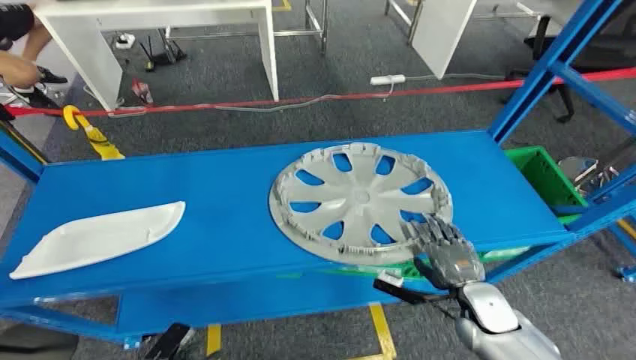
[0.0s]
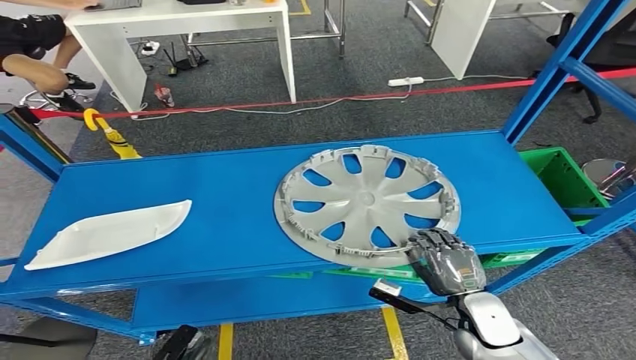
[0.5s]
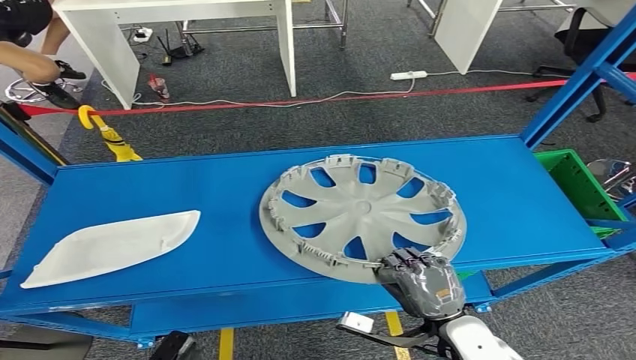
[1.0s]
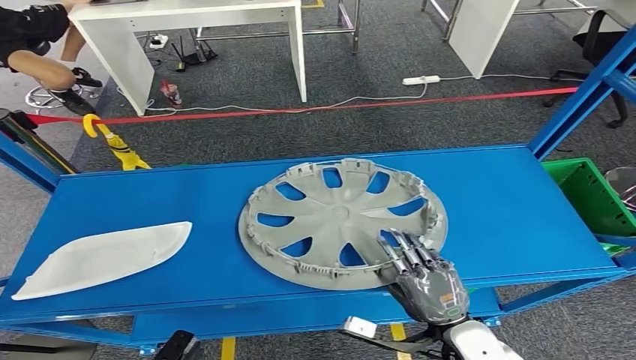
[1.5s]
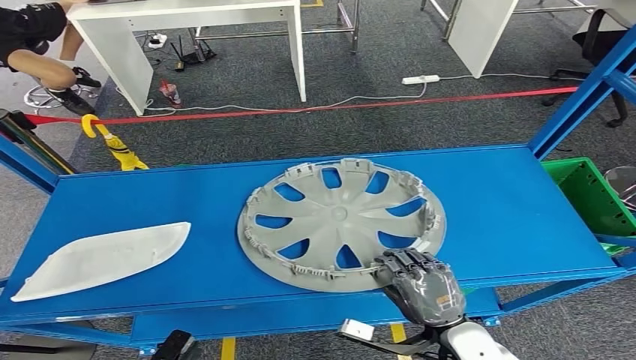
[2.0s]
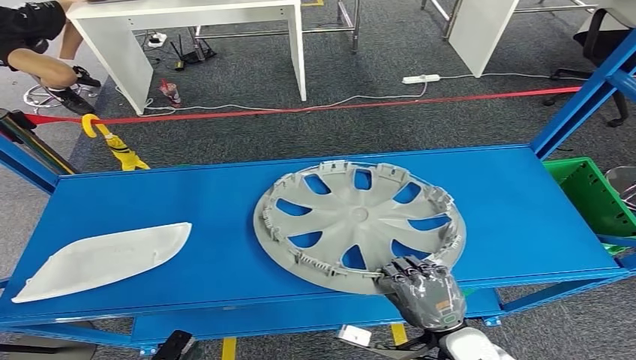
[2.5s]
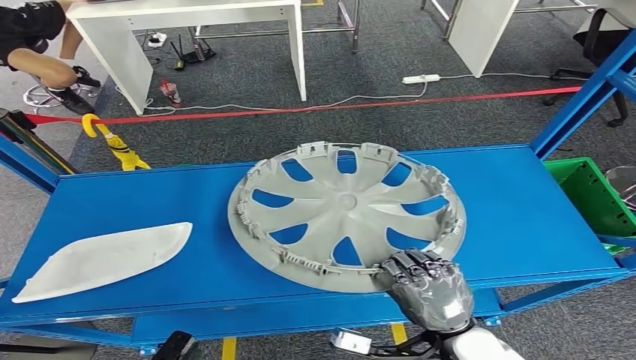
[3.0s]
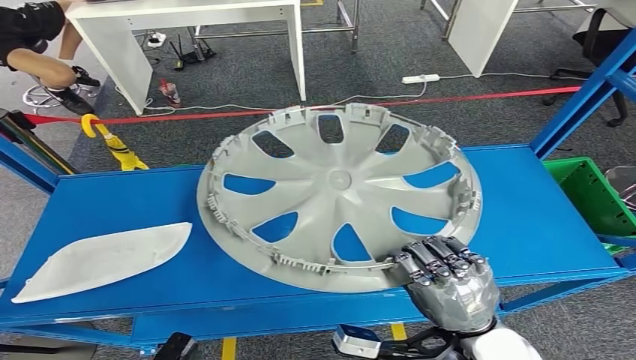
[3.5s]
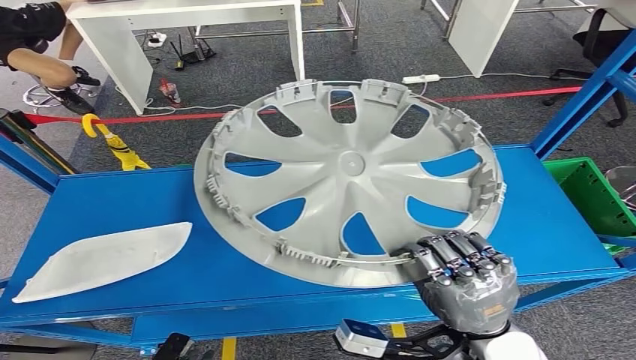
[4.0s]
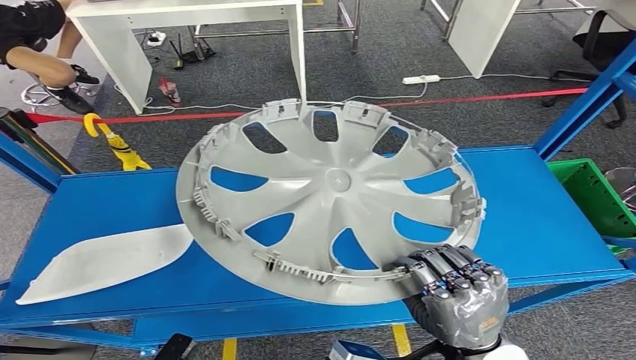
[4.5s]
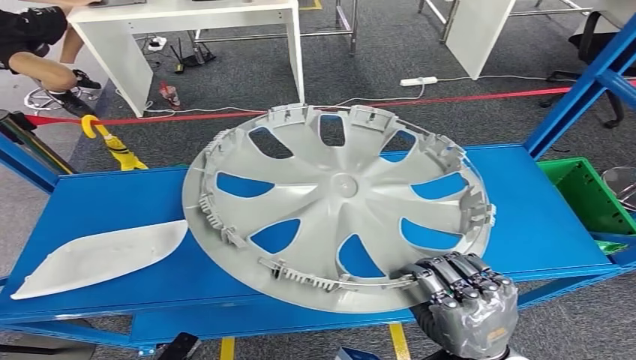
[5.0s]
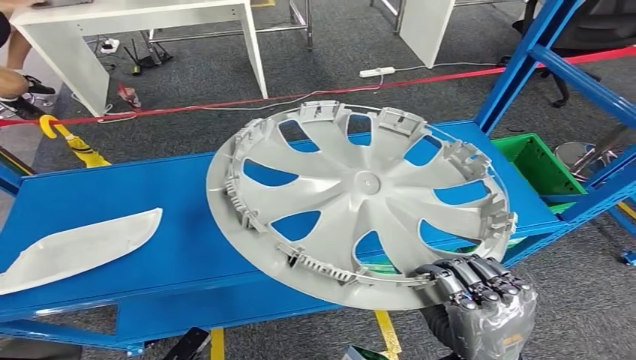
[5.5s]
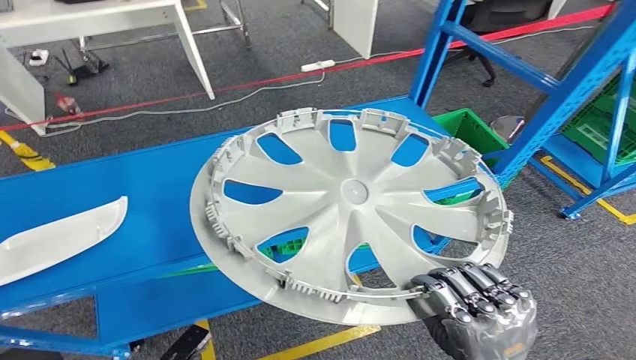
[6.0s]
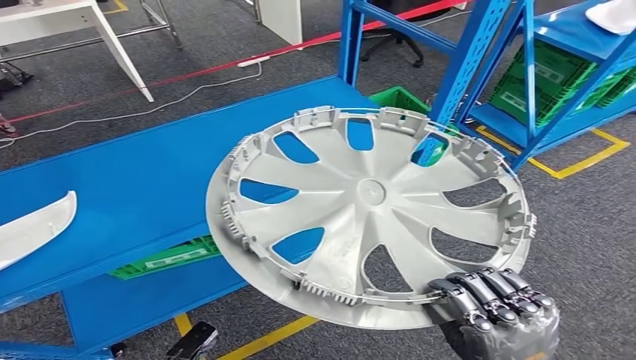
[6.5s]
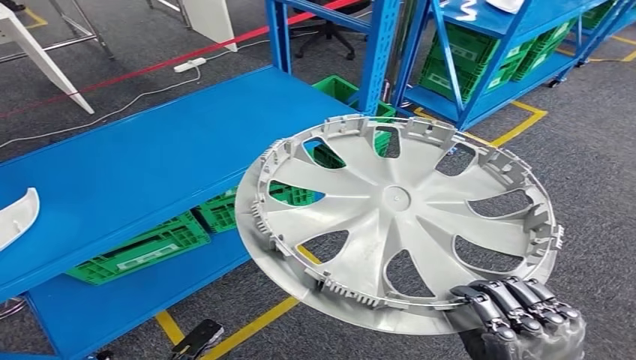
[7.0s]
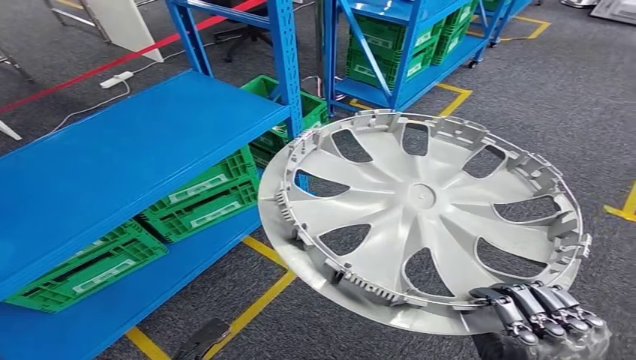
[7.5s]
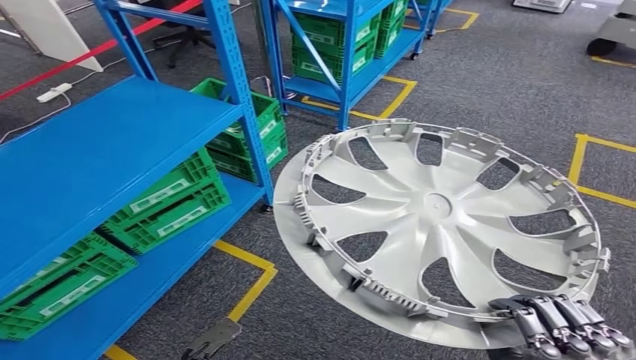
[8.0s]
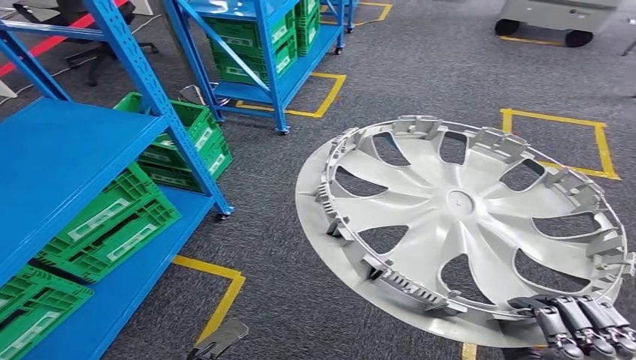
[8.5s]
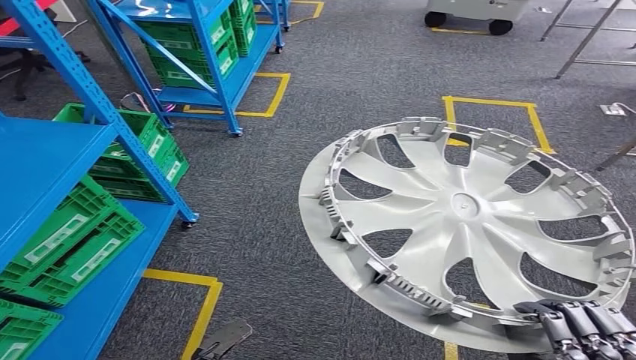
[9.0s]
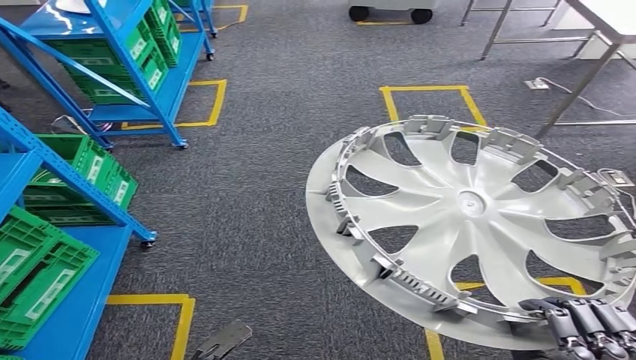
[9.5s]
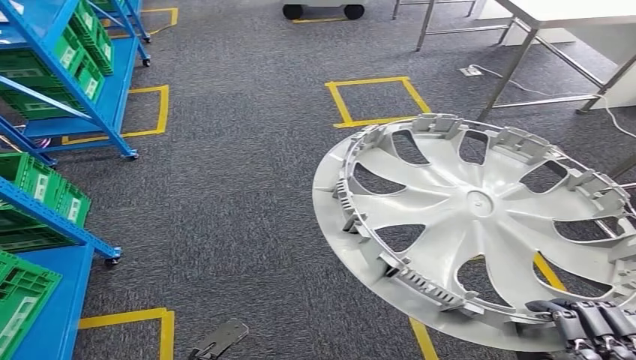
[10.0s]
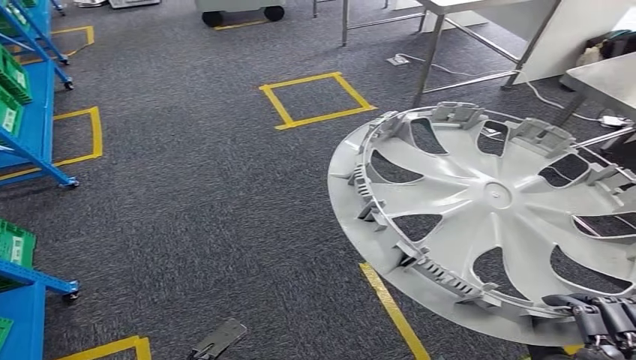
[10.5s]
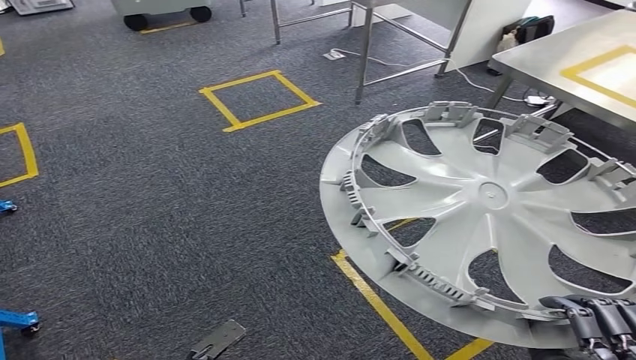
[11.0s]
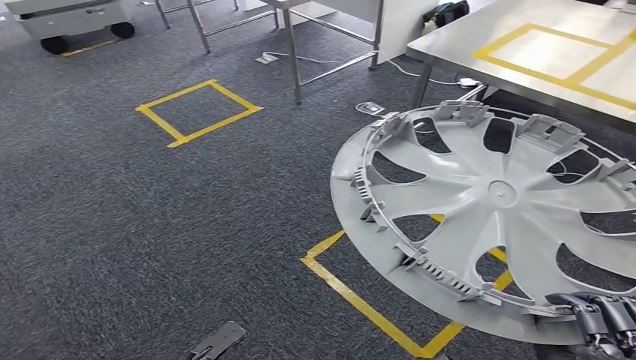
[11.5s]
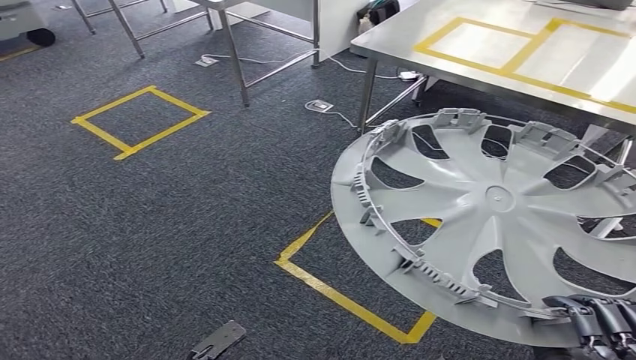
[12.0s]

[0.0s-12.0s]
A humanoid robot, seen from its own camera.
Step, 0.0s to 4.5s: Pick up the small component from the shelf.

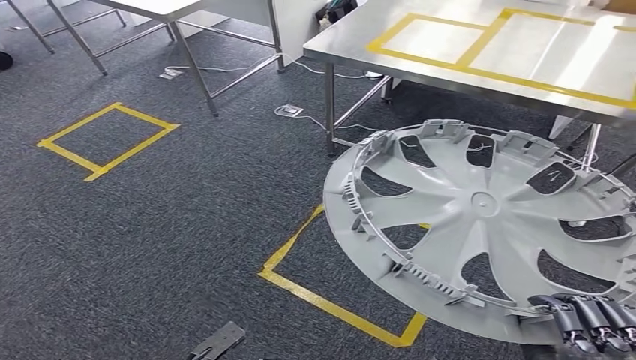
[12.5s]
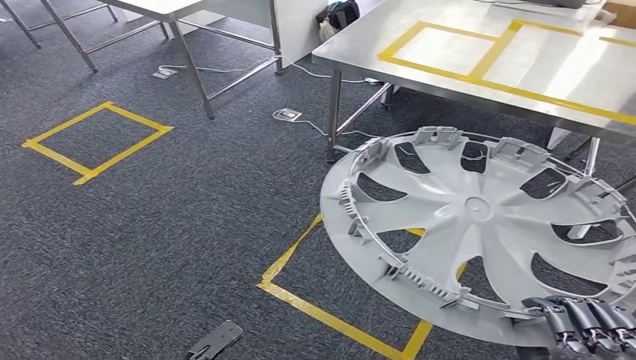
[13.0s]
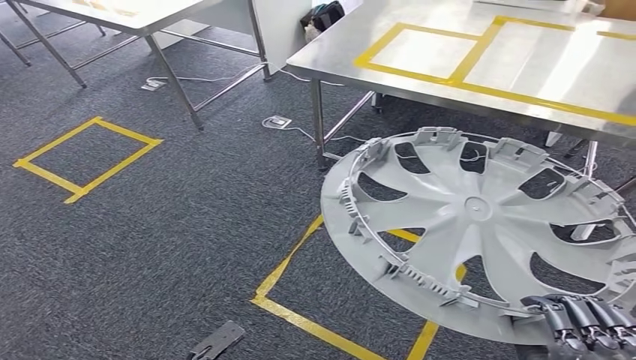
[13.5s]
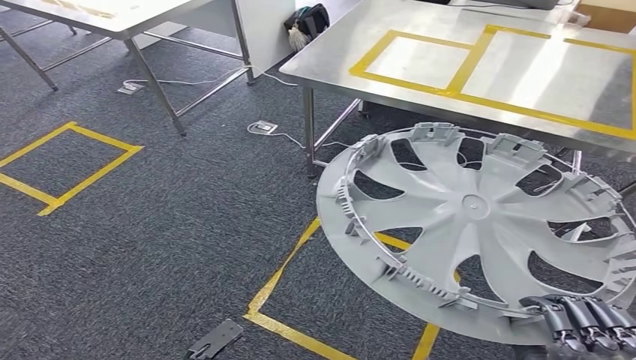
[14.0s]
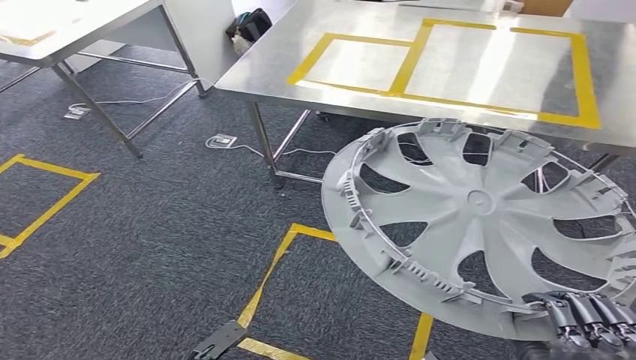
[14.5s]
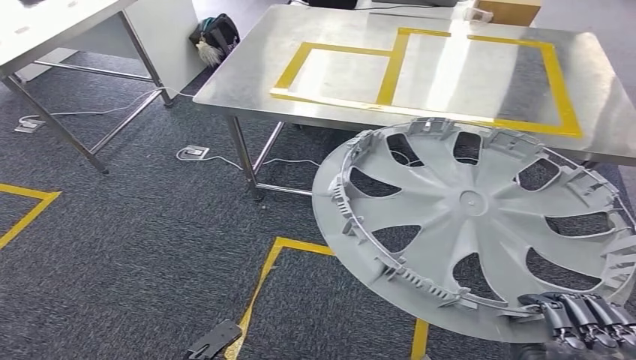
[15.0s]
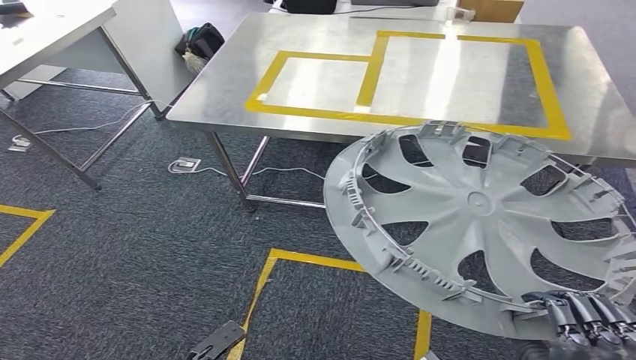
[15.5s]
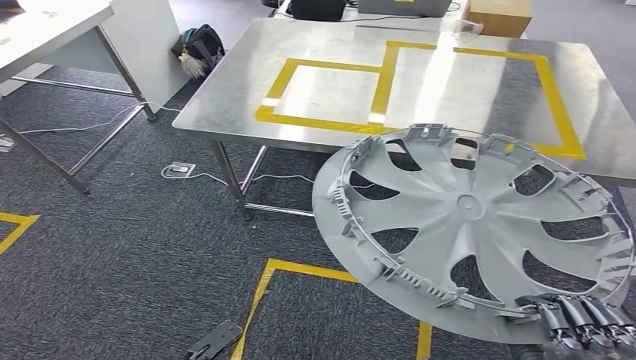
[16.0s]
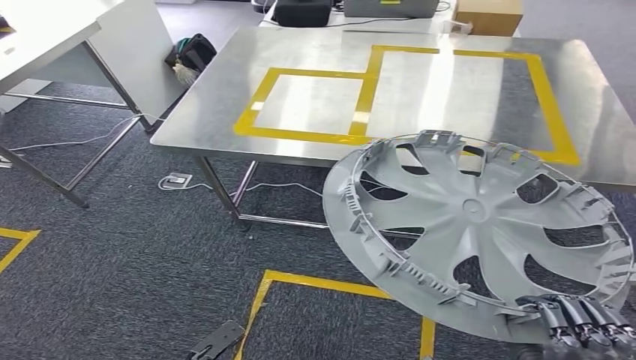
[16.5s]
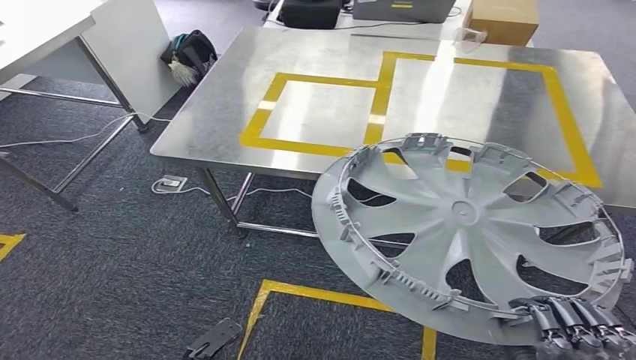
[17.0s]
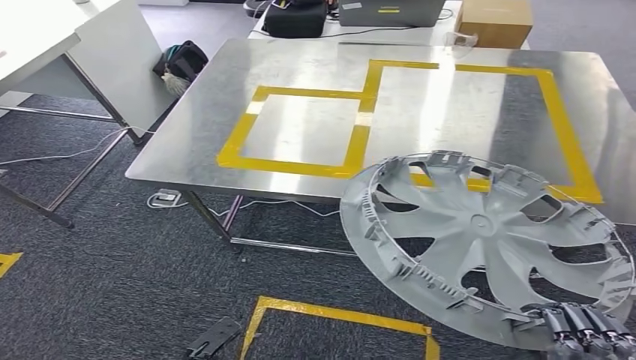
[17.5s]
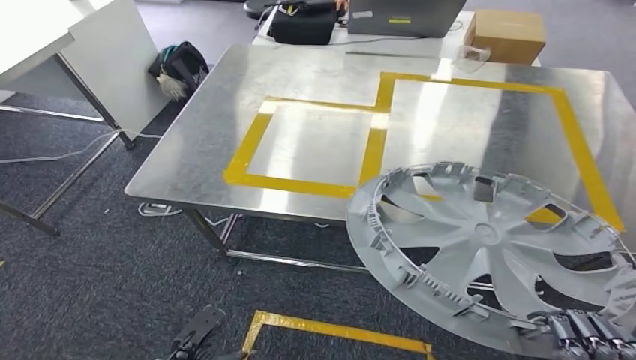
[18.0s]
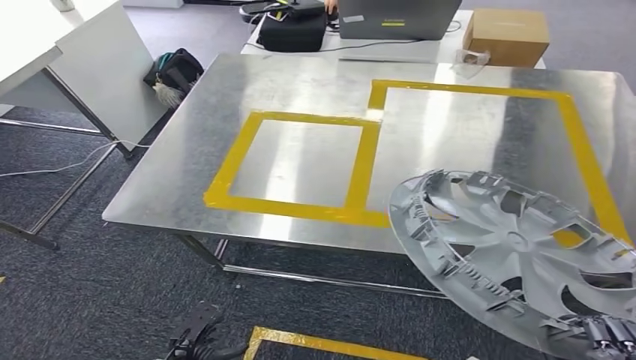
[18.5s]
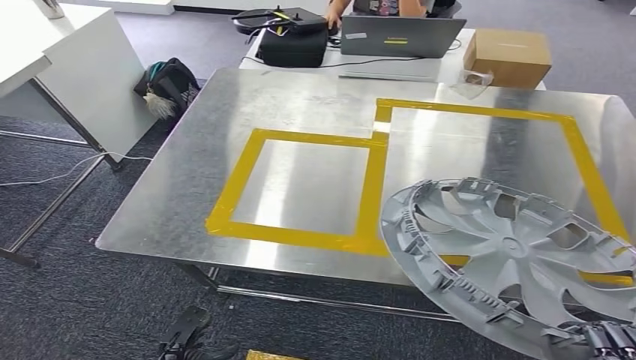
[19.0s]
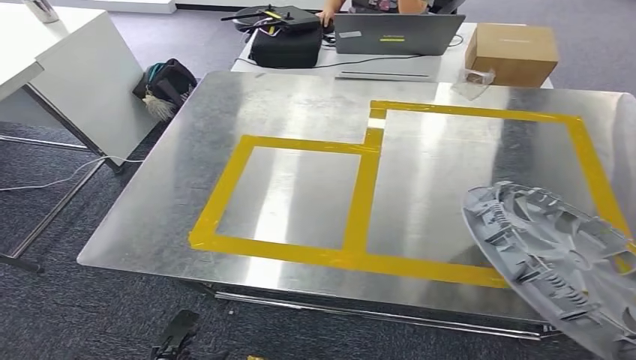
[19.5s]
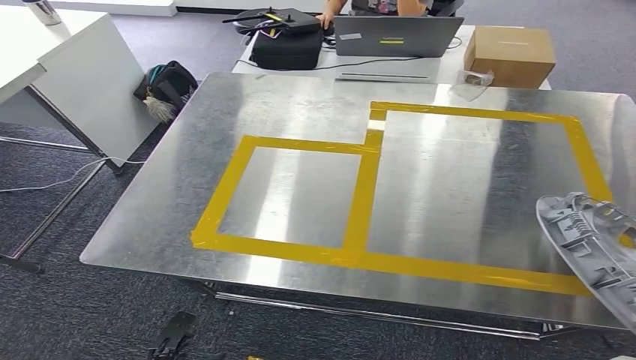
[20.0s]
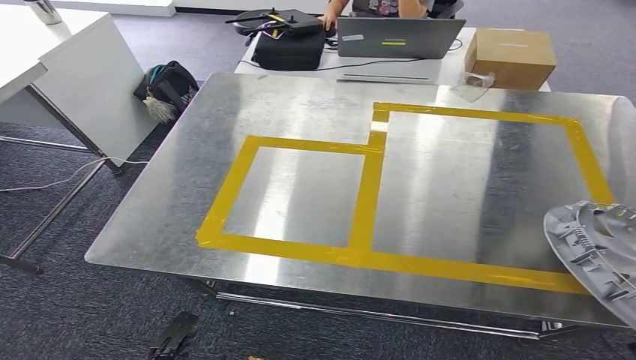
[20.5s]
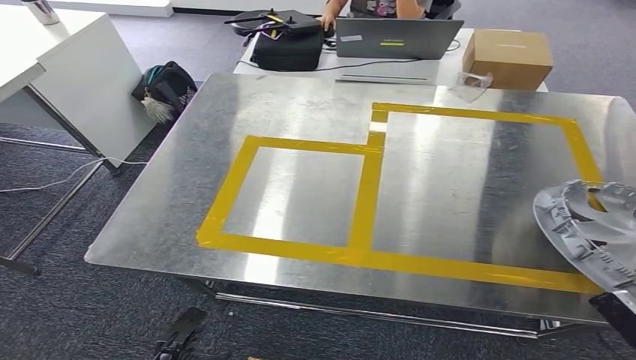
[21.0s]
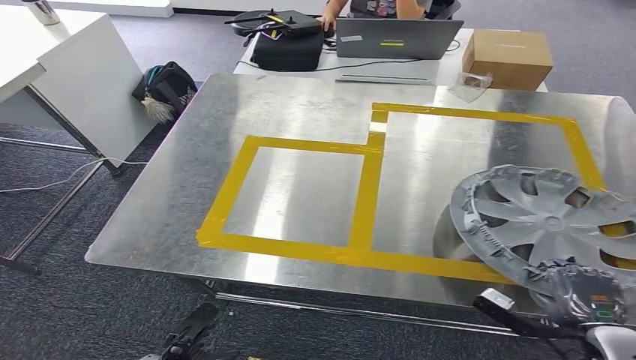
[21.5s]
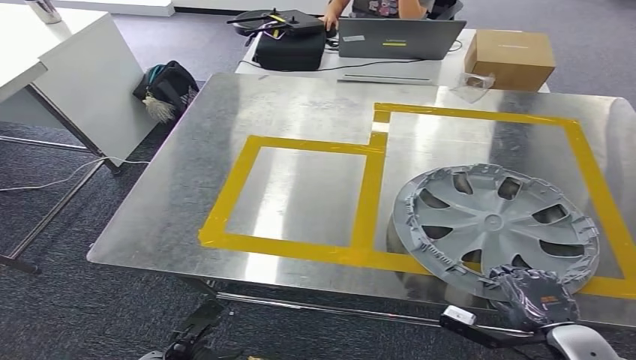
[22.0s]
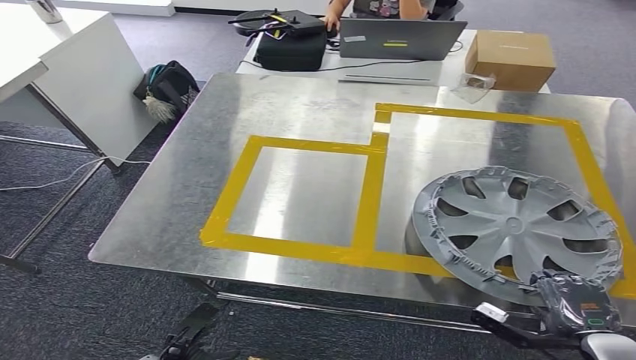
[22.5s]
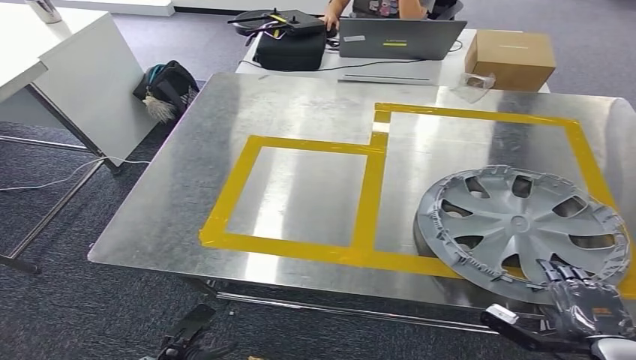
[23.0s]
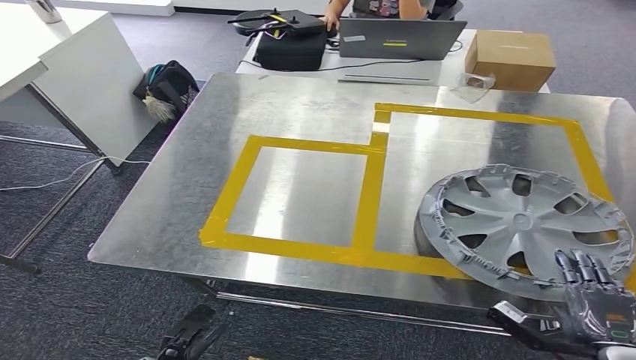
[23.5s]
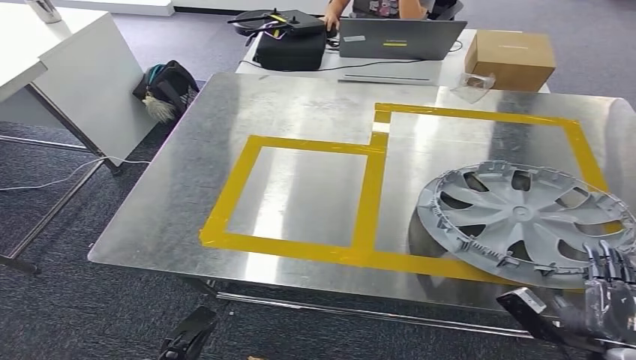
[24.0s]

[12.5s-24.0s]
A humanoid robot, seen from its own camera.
Step, 12.5s to 17.5s: Move the small component to the workbench.
20.0s to 22.0s: The right hand shifts roughly 15 cm forward.
